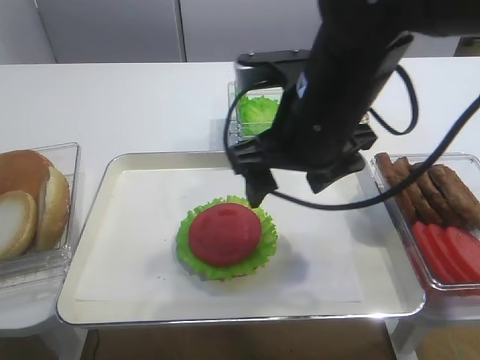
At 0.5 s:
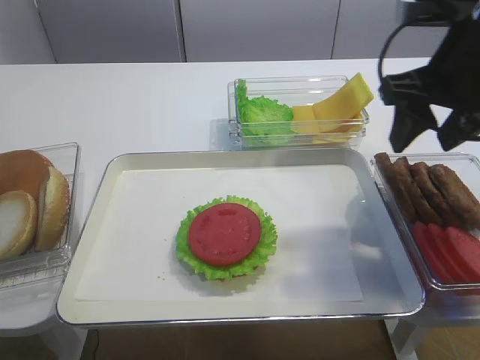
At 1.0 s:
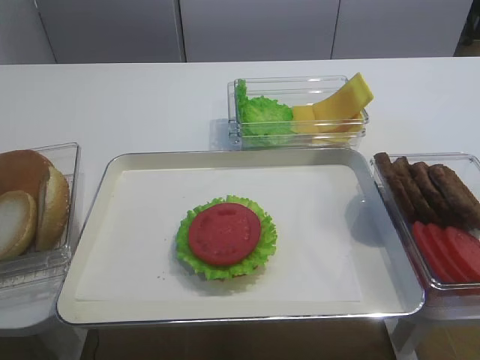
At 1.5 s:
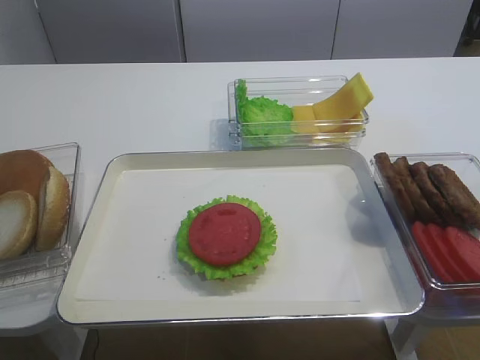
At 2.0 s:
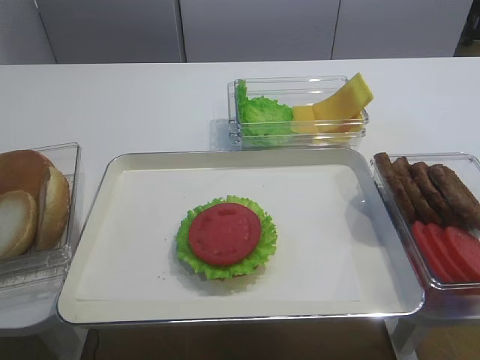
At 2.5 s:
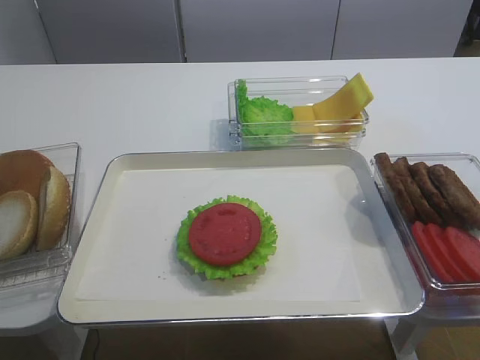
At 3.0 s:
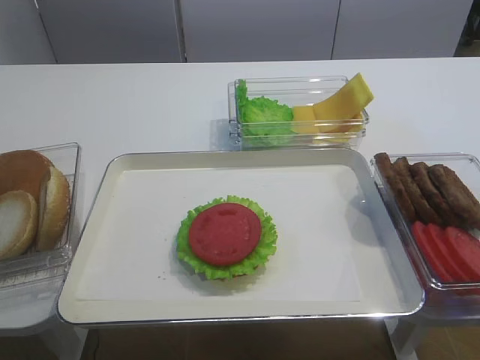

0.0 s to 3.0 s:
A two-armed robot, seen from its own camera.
0.0 to 1.5 s: The right gripper heads to the right and backward, covering about 30 cm, and closes up.
